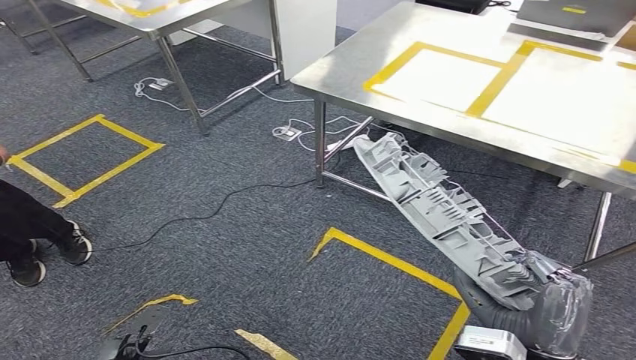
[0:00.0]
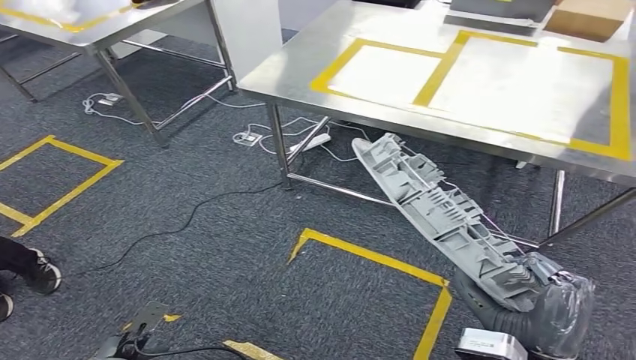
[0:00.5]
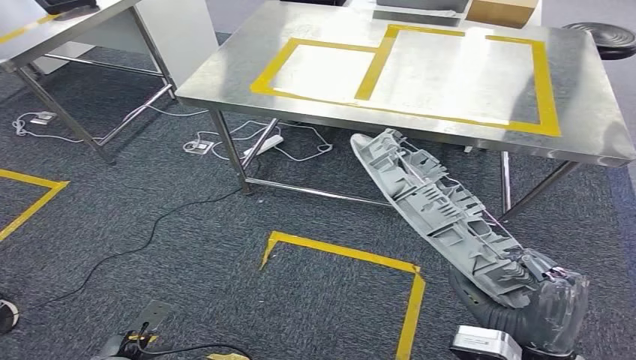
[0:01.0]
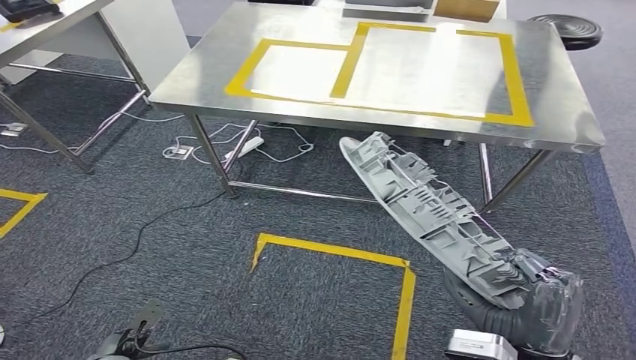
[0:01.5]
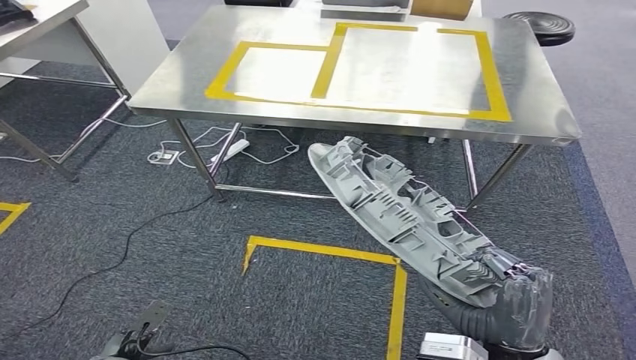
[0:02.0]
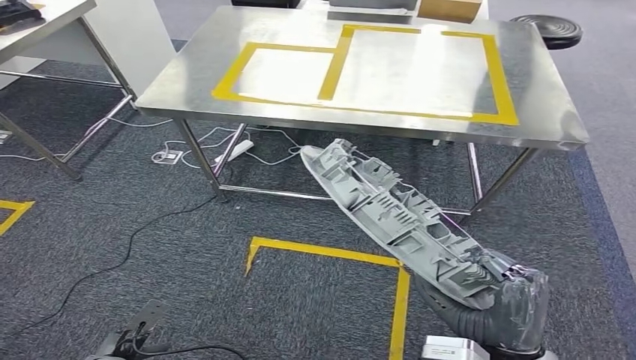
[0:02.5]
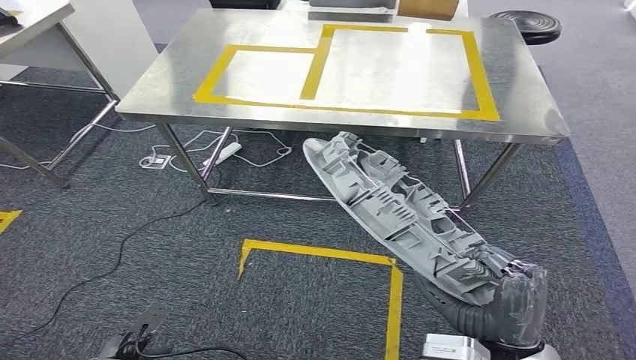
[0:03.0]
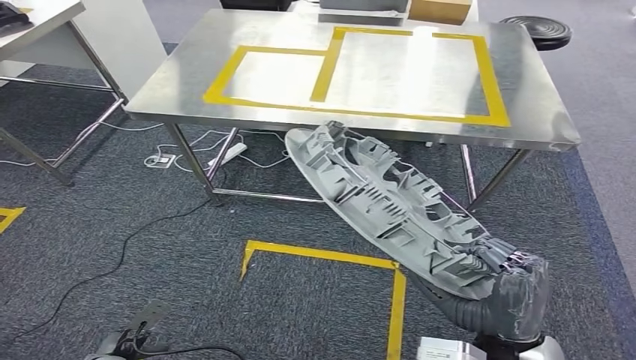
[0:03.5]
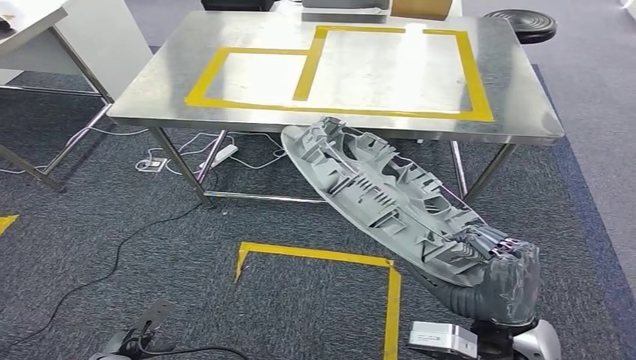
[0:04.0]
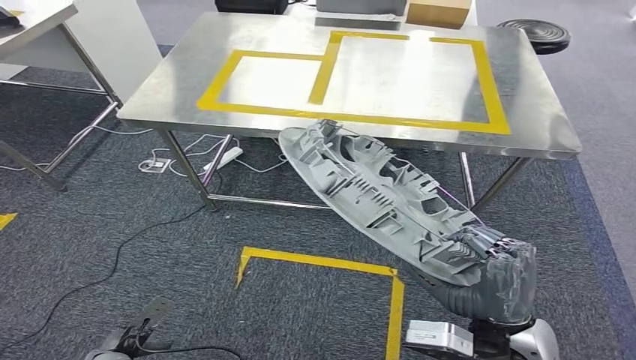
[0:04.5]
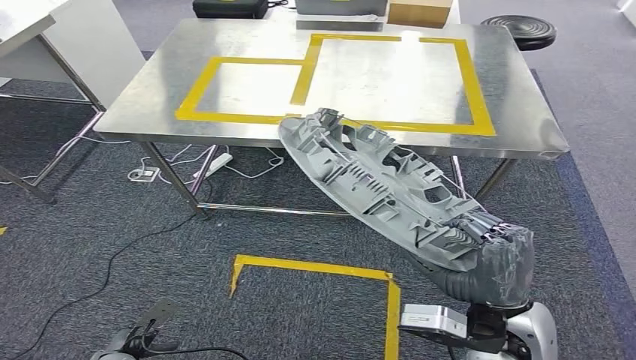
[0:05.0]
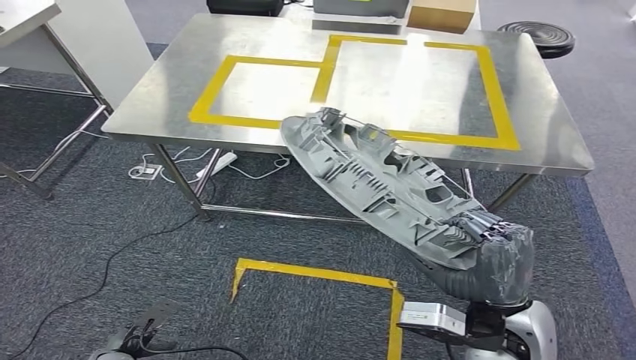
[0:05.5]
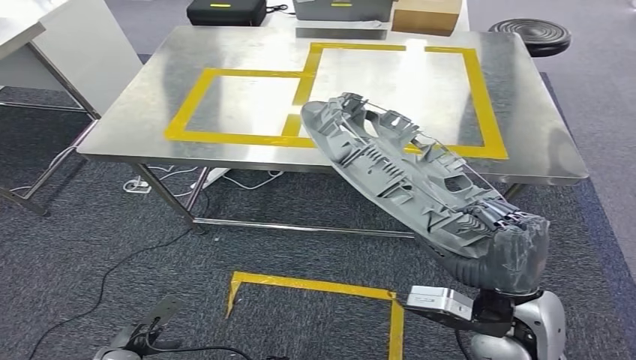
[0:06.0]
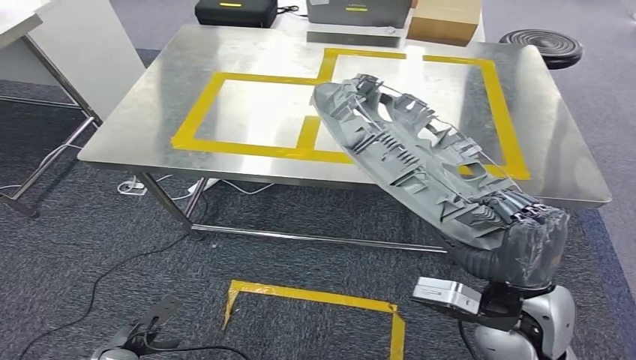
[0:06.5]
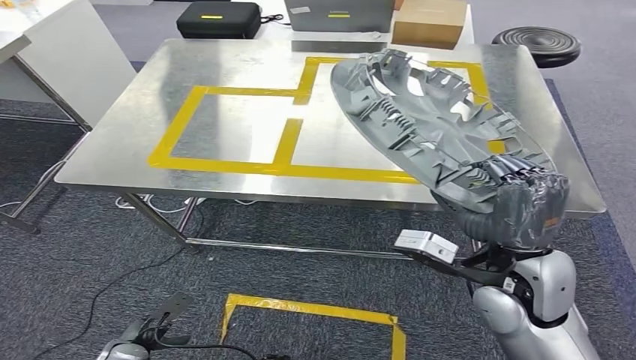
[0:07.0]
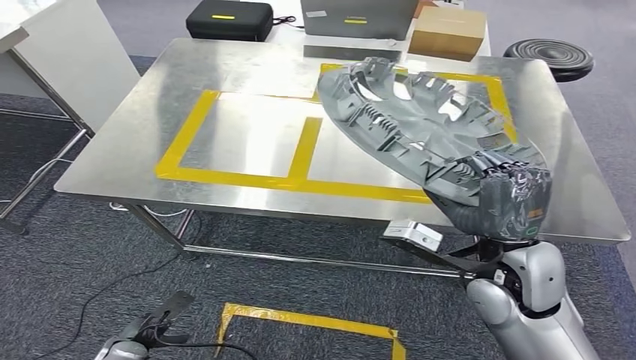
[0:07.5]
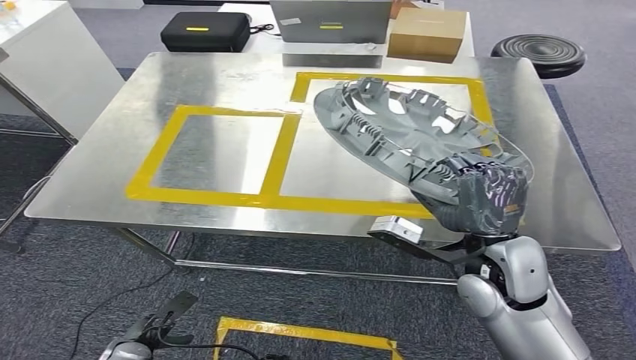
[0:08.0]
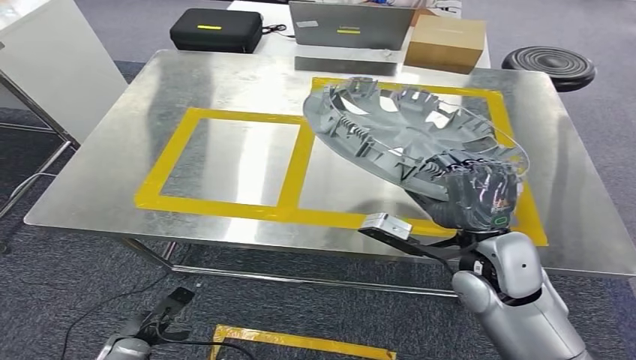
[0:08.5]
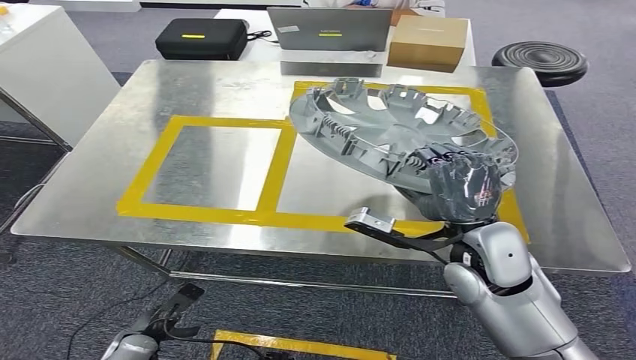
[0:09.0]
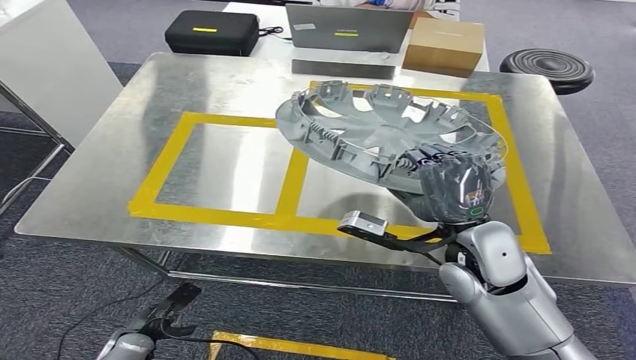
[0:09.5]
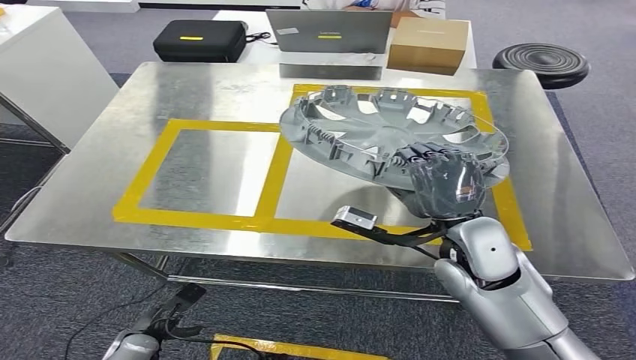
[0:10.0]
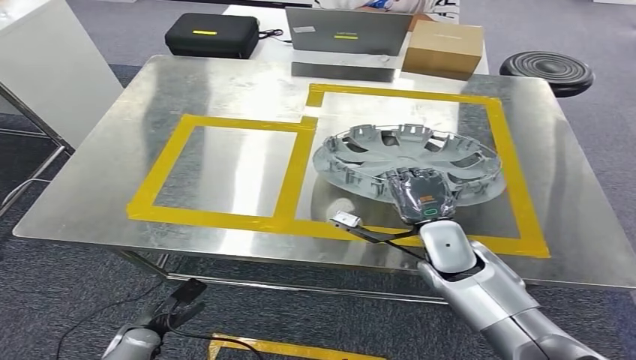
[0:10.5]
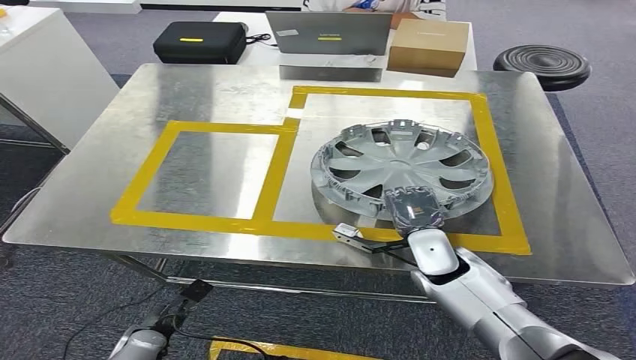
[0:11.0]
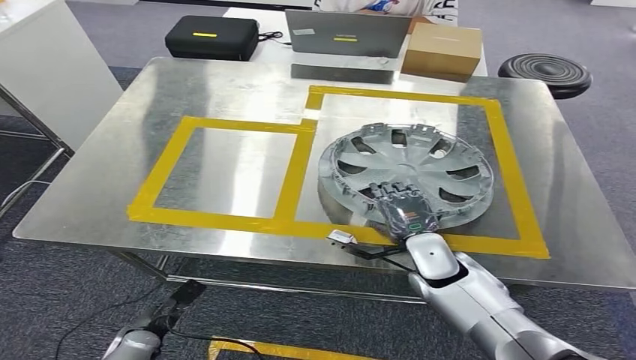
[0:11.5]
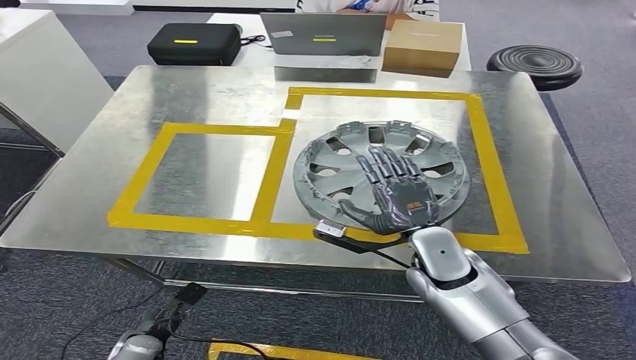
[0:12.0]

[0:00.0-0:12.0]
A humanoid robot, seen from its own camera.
Step, 0:00.0 to 0:06.5: Move the small component to the workbench.

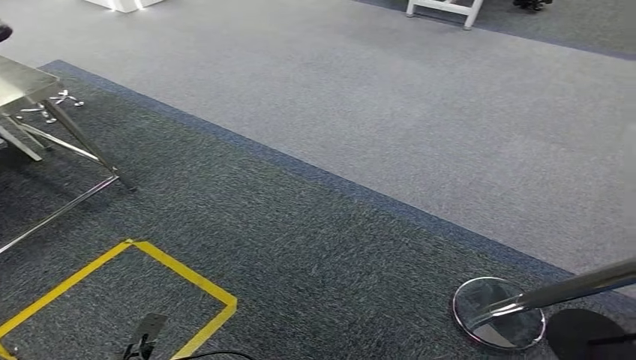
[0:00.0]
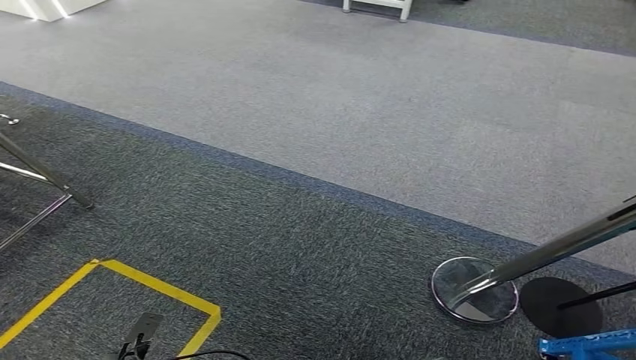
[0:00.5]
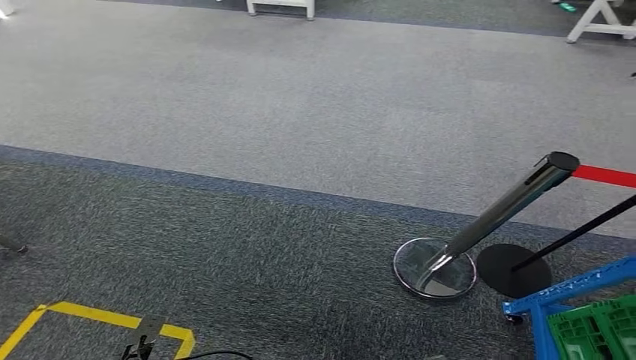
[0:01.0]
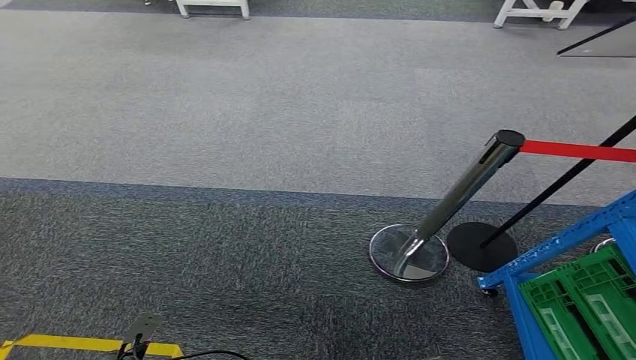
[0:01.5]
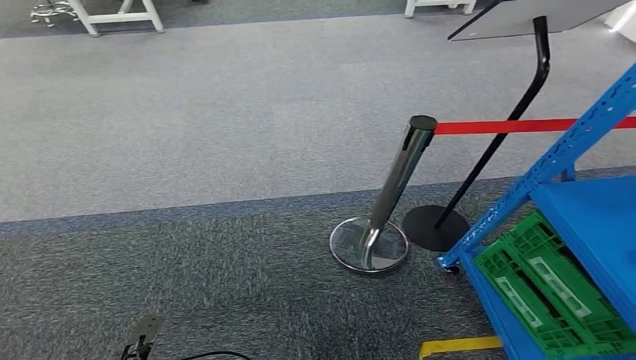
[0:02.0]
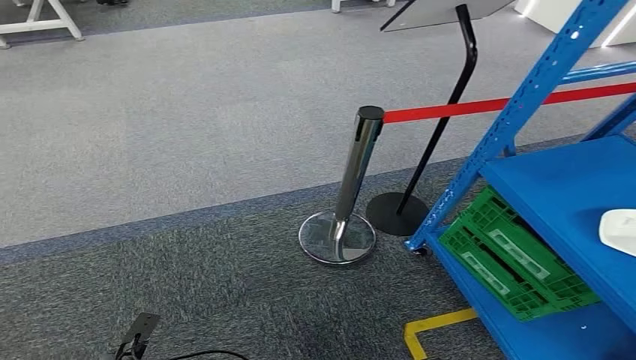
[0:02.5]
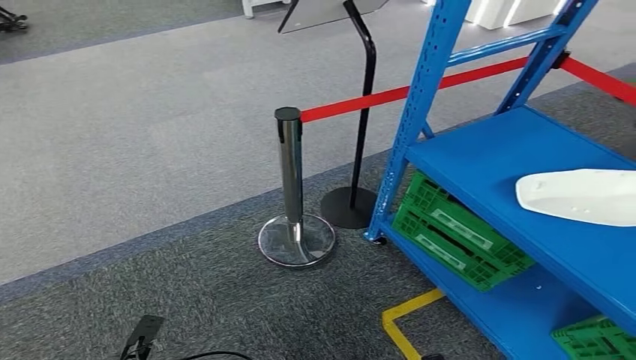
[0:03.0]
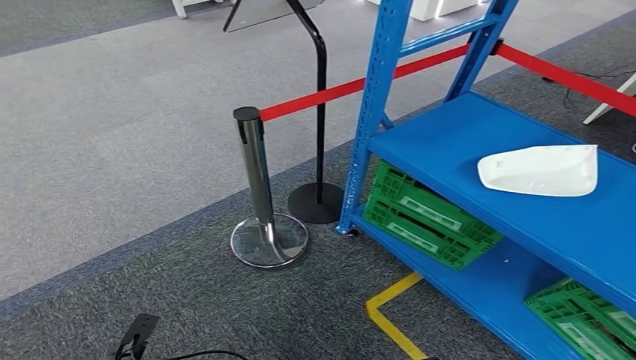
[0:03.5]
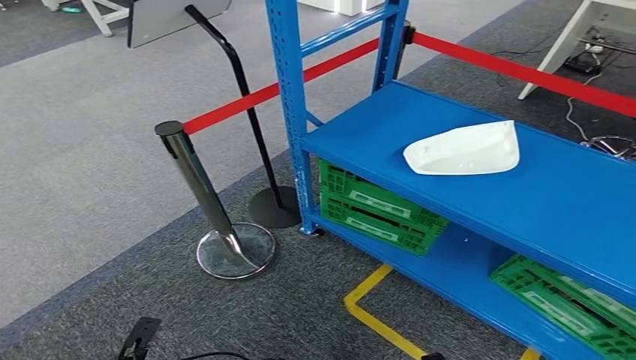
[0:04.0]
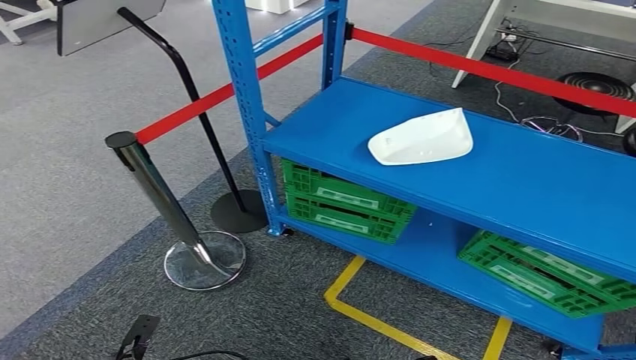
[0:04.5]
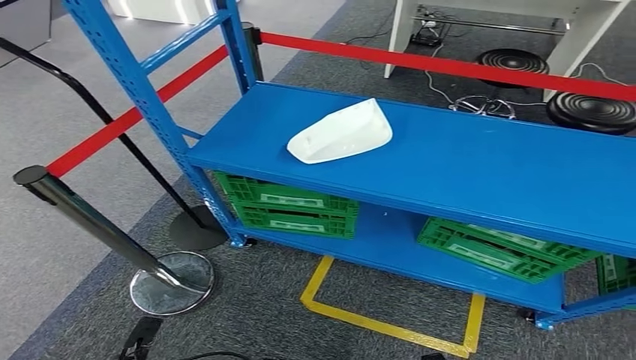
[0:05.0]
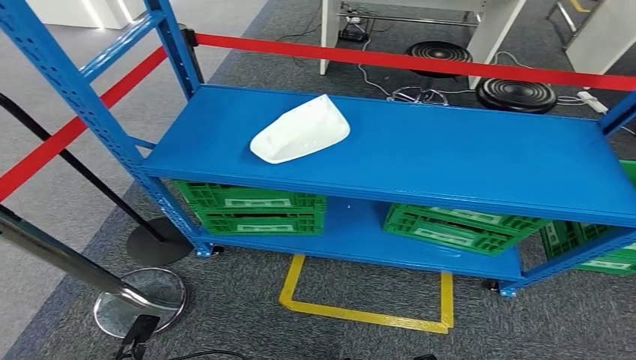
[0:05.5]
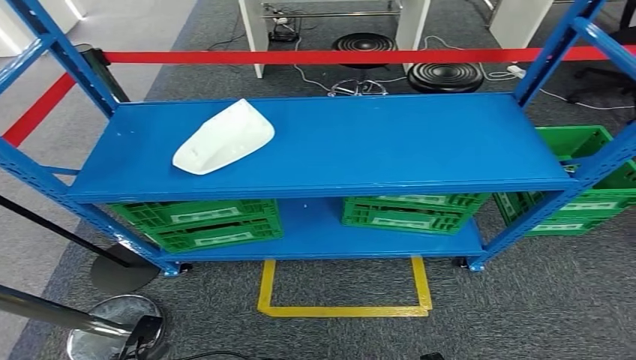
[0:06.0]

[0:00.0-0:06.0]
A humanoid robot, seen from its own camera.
Step, 0:00.0 to 0:06.0: Return to the initial position at the workbench.

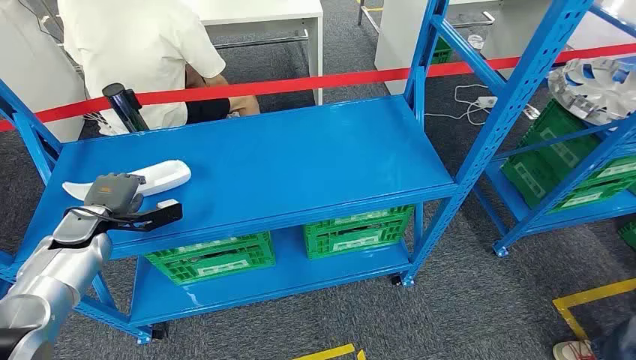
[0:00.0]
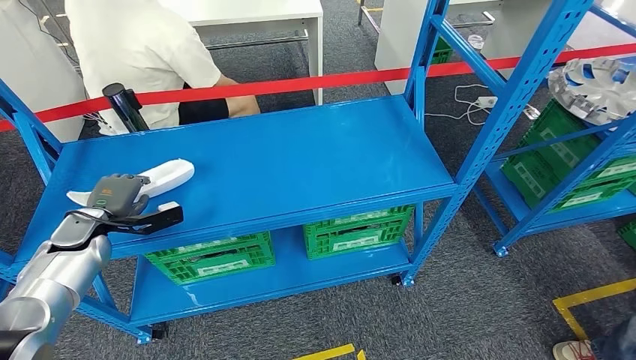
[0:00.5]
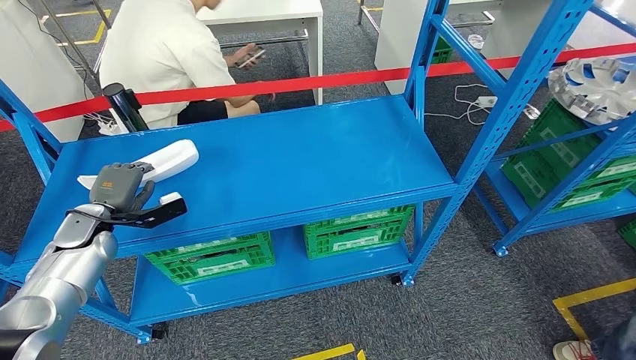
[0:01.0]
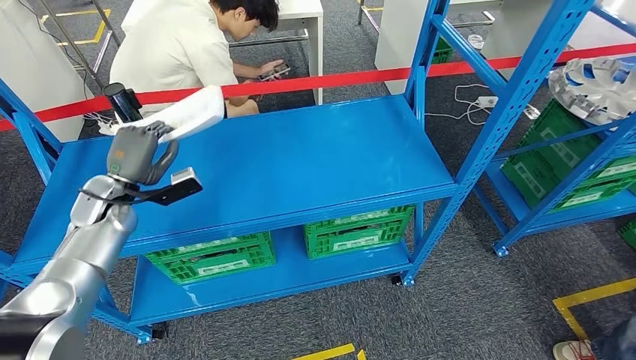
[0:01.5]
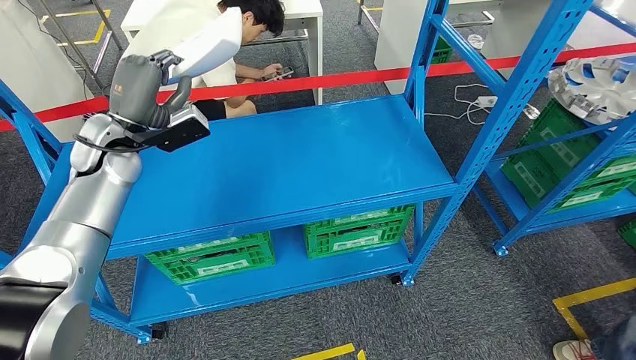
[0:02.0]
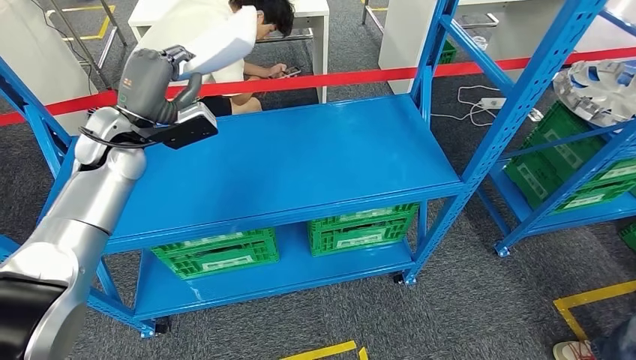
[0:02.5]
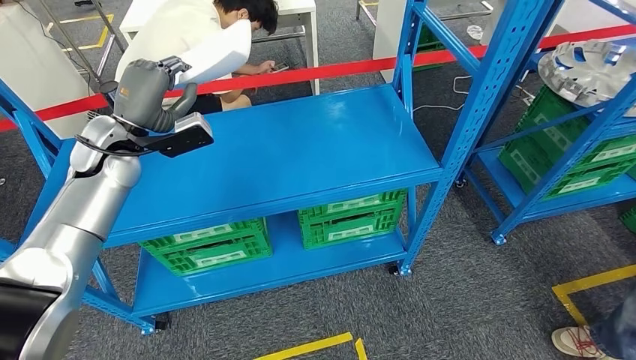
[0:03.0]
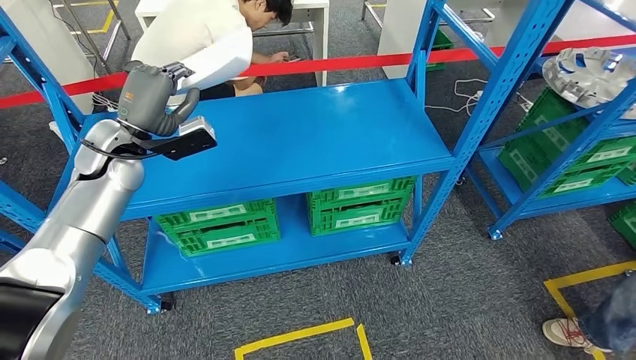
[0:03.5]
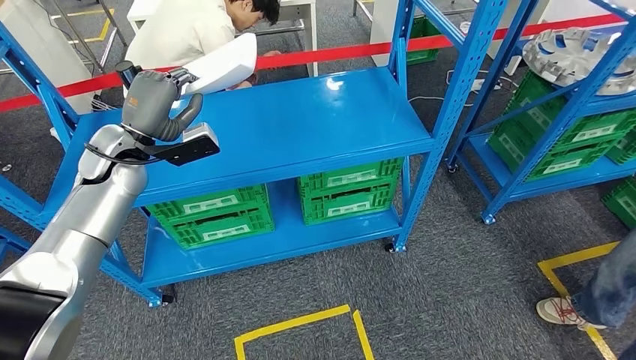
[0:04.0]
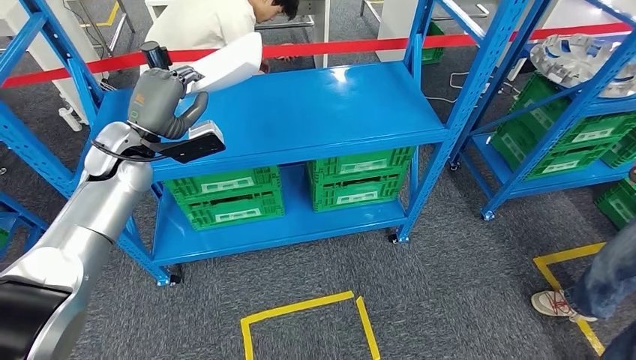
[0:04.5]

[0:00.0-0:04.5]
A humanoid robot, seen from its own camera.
Step, 0:00.0 to 0:02.0: Pick up the small component from the shelf.
